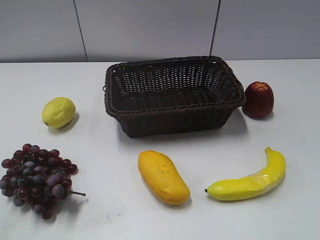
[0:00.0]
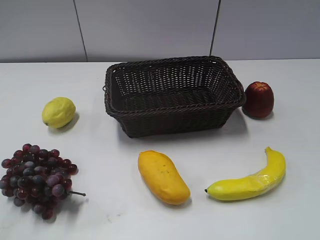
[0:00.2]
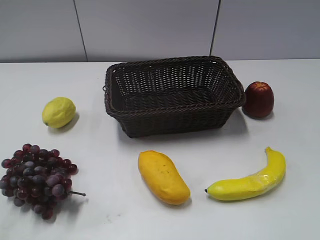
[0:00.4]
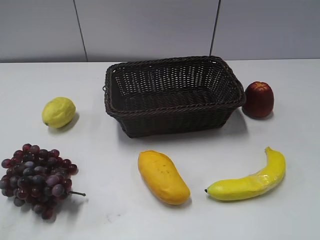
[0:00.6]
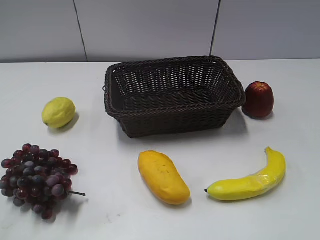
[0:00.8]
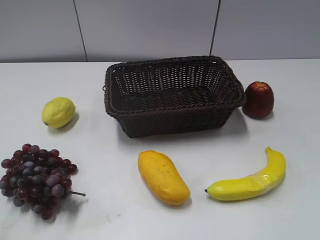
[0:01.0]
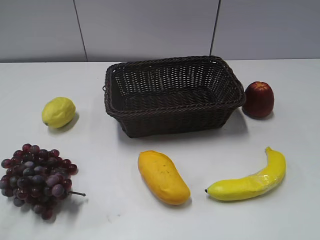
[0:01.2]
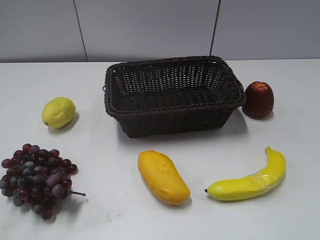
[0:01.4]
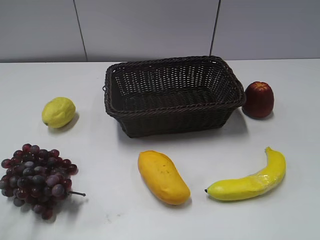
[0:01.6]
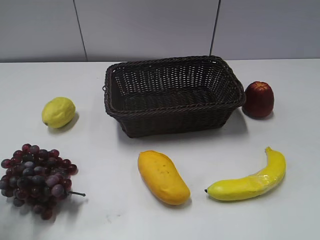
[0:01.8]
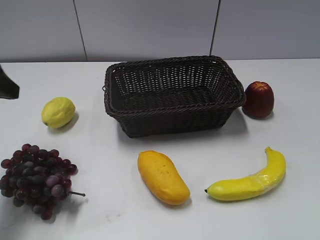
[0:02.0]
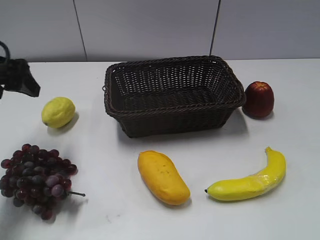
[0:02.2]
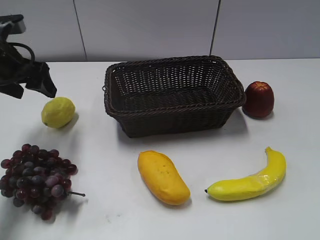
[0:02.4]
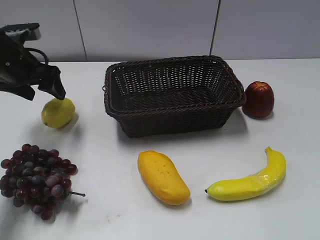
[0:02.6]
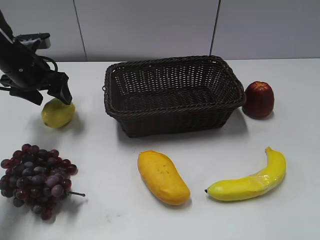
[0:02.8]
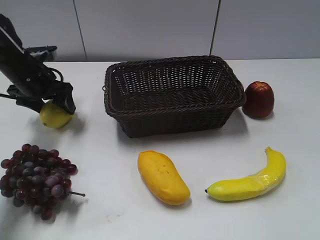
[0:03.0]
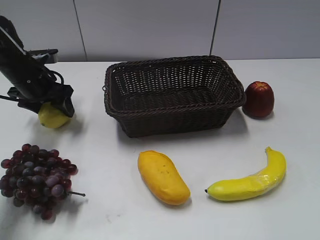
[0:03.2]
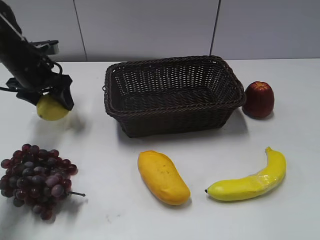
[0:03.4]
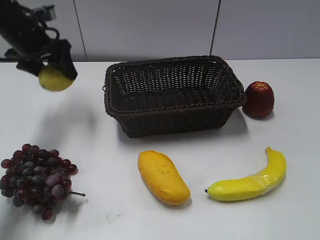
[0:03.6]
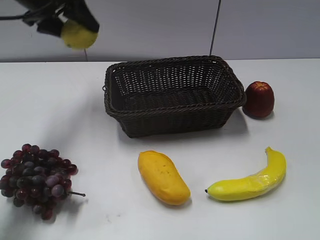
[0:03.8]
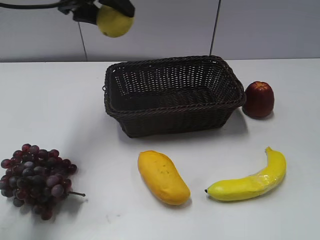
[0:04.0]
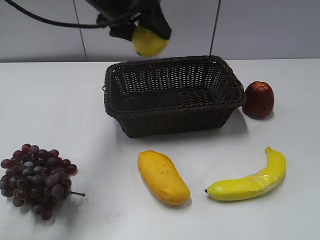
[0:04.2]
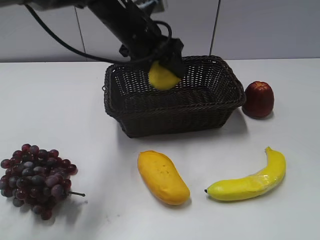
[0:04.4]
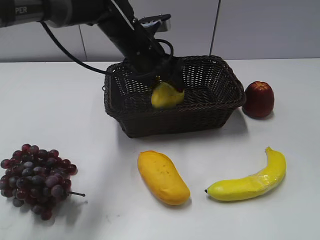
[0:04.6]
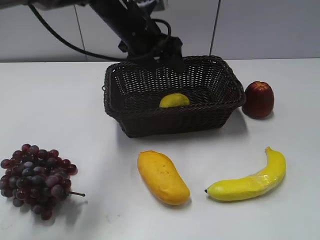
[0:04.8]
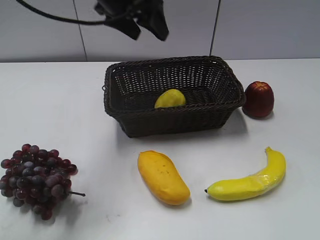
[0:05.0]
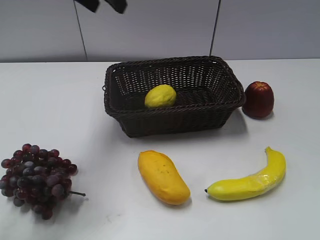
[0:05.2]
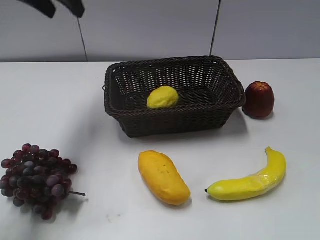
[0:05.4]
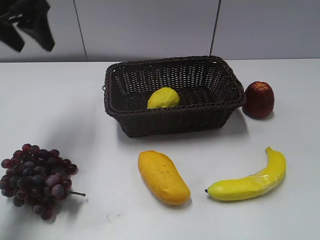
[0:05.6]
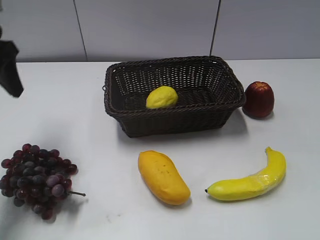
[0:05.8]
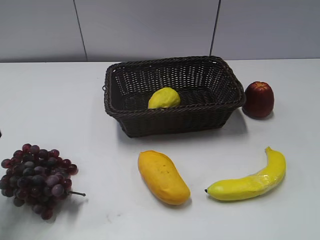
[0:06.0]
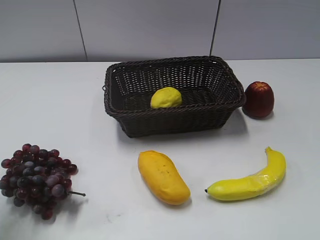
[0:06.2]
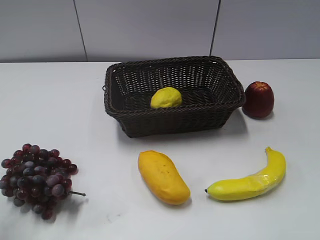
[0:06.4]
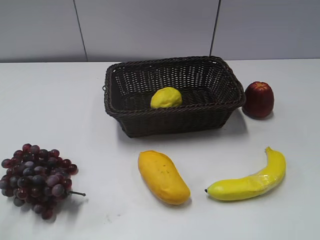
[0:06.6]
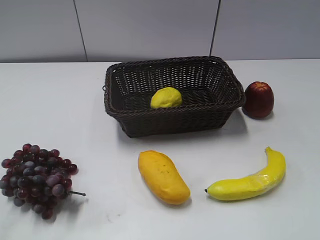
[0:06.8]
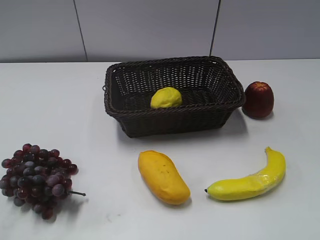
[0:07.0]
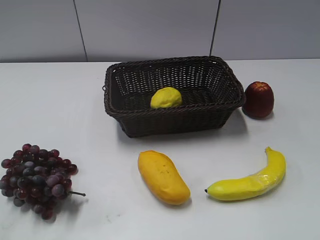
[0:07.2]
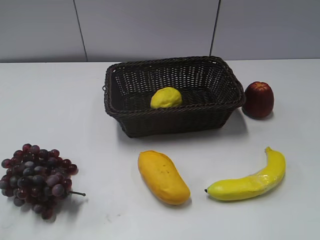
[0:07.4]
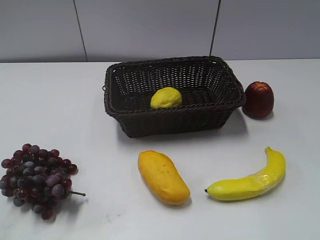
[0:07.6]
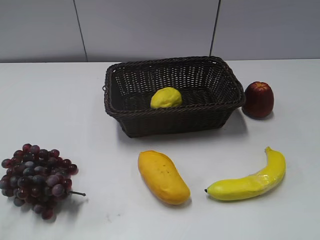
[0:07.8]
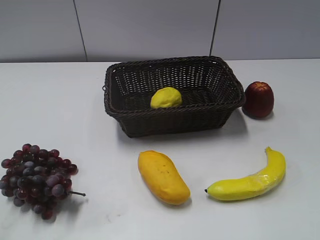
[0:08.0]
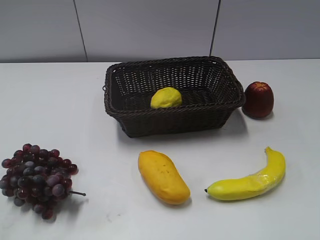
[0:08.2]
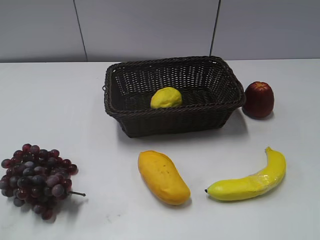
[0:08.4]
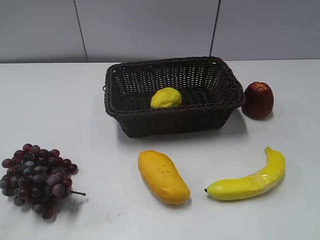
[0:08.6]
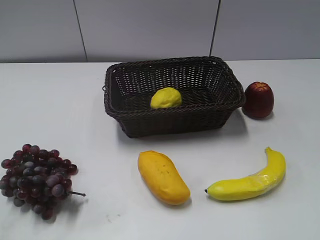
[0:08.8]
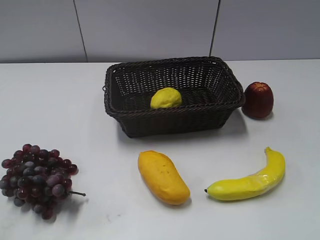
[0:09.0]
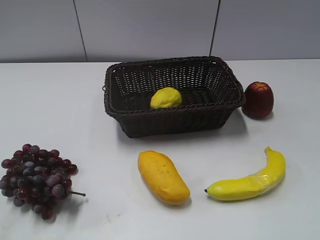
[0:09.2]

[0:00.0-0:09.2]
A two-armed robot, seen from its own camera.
Step, 0:02.0 to 0:03.2: Grasp the lemon with left gripper.
Step, 0:03.4 to 0:04.6: Place the lemon in the basket with left gripper.
0:01.6 to 0:03.0: The left gripper heads forward and downward, covering roughly 35 cm.
0:03.0 to 0:04.6: The left gripper shifts about 20 cm to the right, and closes, then reopens.
0:04.6 to 0:06.2: The left gripper shifts roughly 35 cm to the left and backward, and closes its fingers.
0:06.2 to 0:07.6: The left gripper goes roughly 15 cm backward.

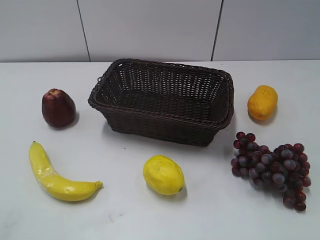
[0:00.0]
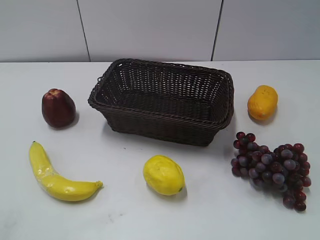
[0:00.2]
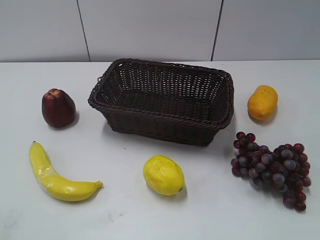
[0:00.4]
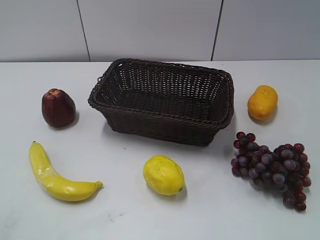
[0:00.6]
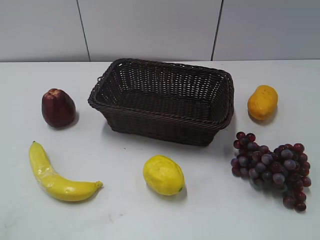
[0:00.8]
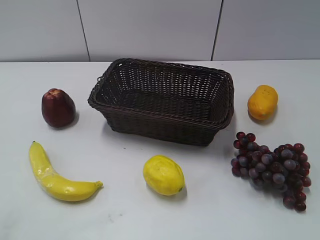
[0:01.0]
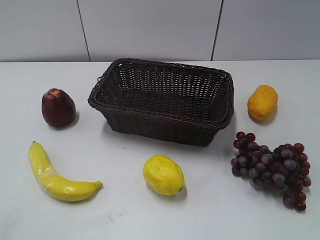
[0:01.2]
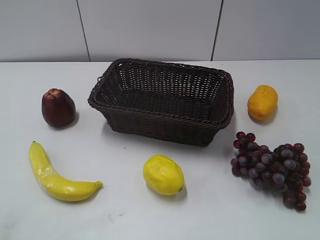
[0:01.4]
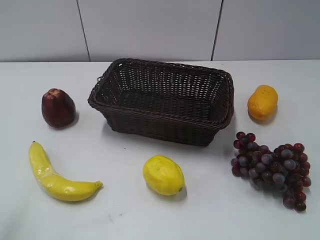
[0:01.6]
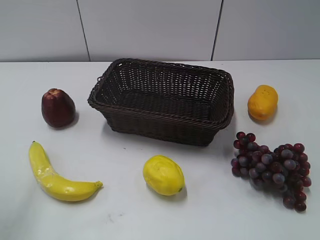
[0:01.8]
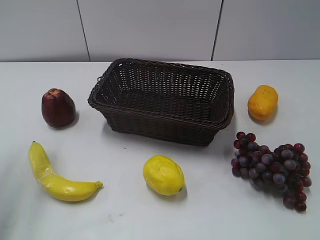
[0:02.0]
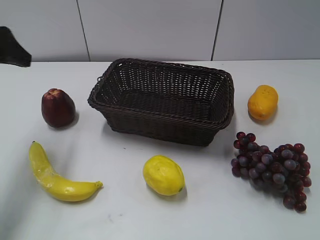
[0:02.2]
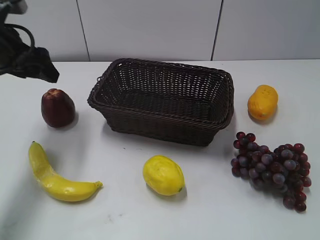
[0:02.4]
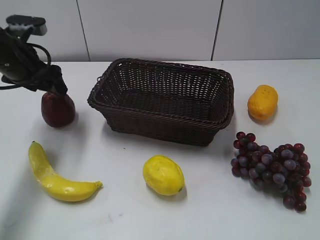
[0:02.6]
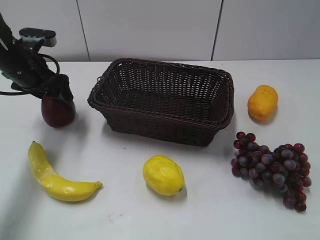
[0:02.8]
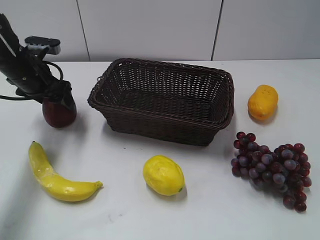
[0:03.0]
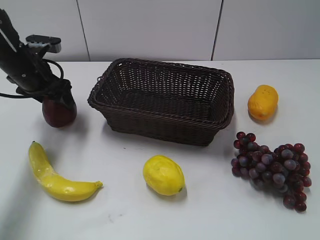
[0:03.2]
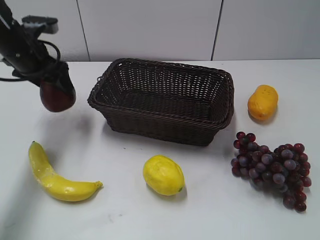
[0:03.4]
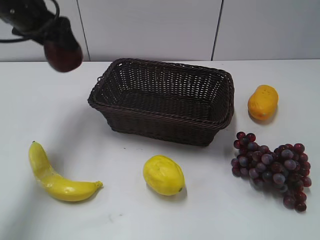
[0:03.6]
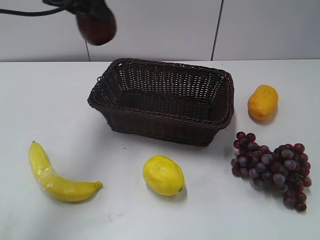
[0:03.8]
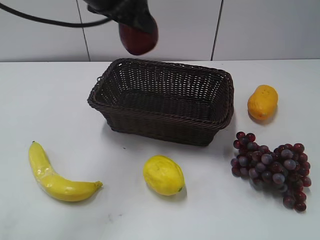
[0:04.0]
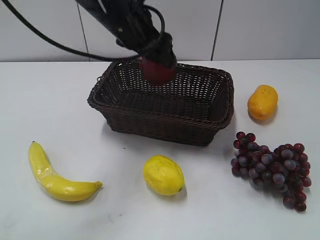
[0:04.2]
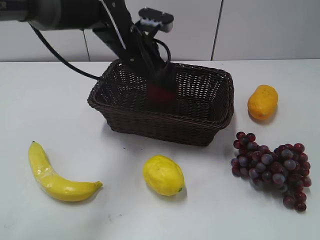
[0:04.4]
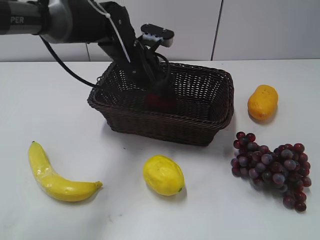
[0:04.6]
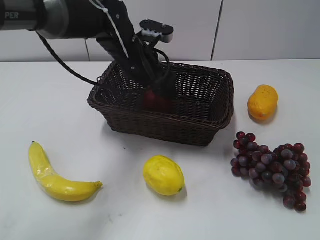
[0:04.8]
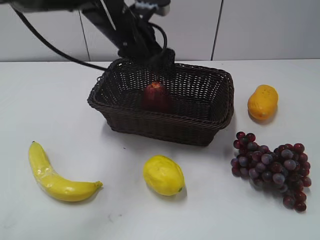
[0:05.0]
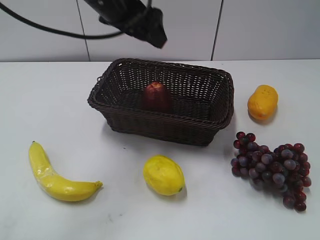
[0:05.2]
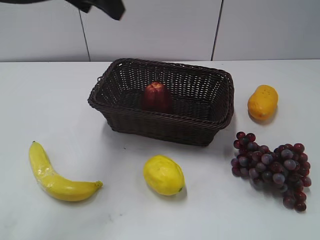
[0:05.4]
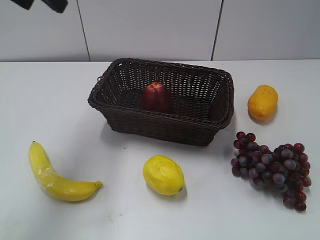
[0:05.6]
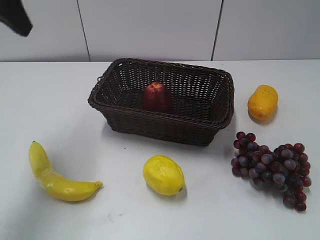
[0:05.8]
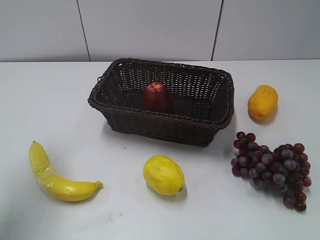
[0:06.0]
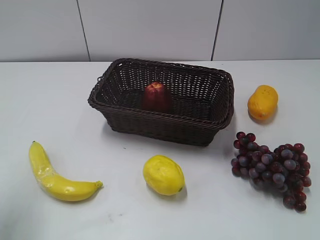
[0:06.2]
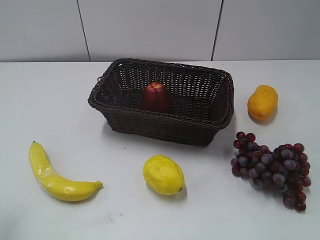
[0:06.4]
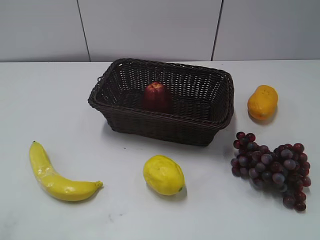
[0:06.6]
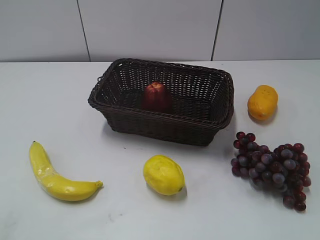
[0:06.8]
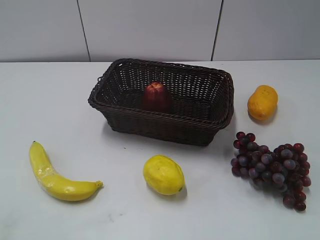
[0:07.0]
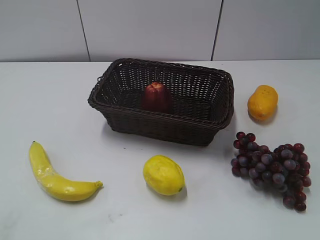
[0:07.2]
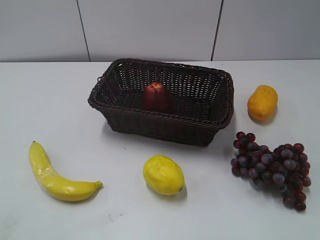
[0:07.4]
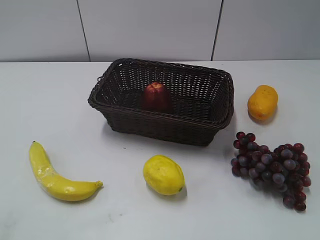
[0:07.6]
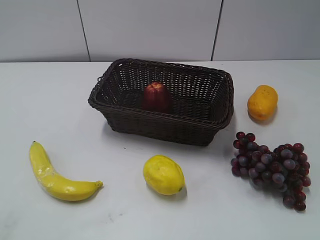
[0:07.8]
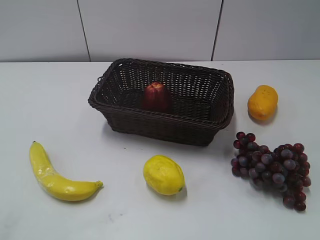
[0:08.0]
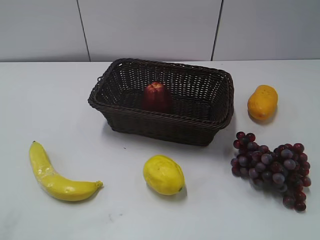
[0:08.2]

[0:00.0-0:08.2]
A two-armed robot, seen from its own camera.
Step, 0:02.2 to 0:02.8: Grasp the apple with left gripper.
Step, 0:03.2 to 0:04.6: Place the apple in the basket with left gripper.
0:01.6 to 0:03.2: The left gripper goes some 30 cm forward and downward.
0:03.2 to 0:05.0: The left gripper shifts some 20 cm to the right and upward, and opens.
0:05.0 to 0:06.6: The left gripper is displaced backward and to the left by roughly 40 cm, and closes its fingers.

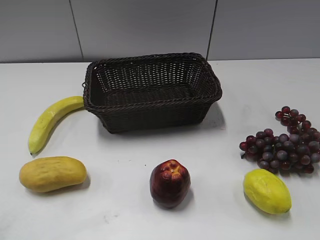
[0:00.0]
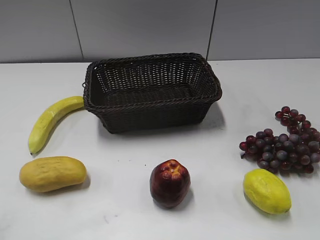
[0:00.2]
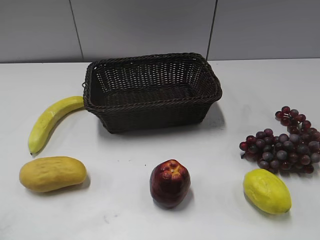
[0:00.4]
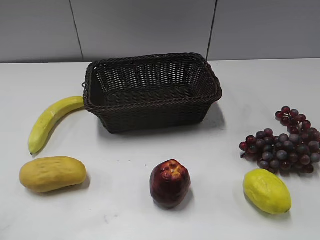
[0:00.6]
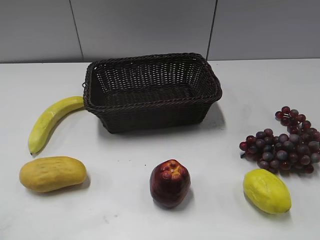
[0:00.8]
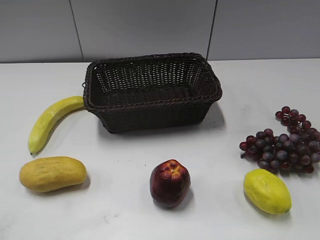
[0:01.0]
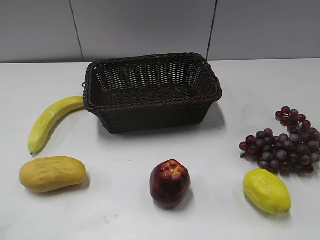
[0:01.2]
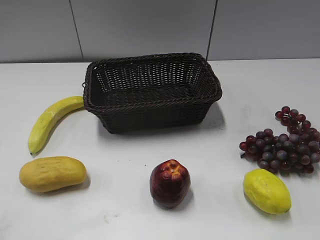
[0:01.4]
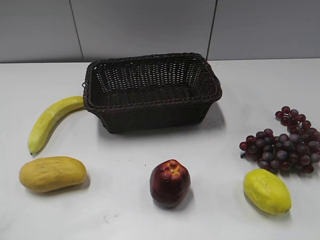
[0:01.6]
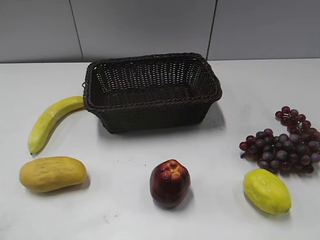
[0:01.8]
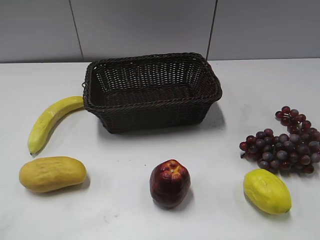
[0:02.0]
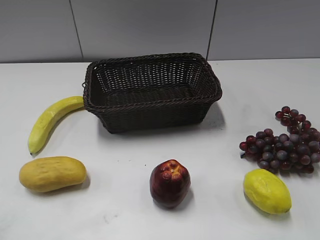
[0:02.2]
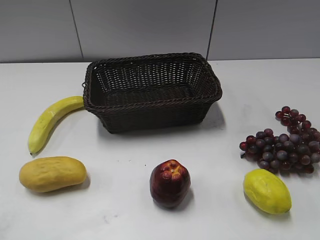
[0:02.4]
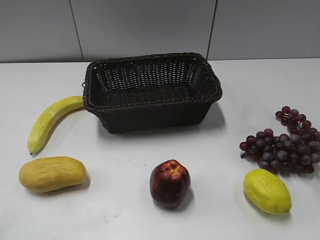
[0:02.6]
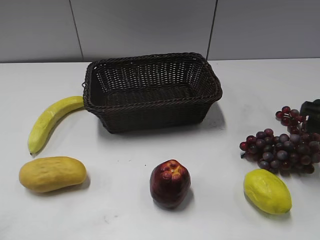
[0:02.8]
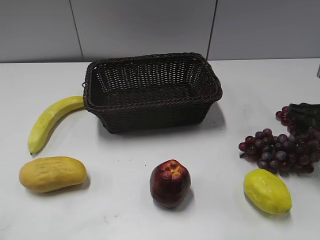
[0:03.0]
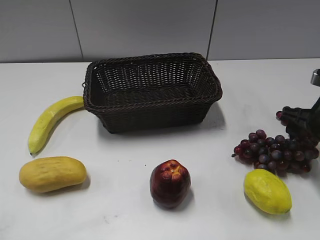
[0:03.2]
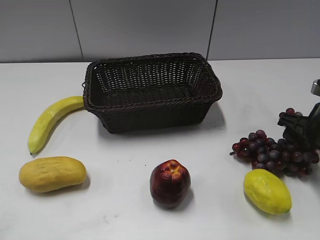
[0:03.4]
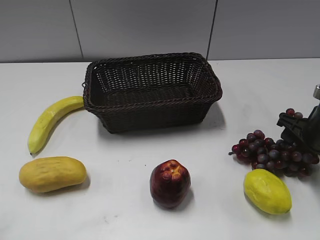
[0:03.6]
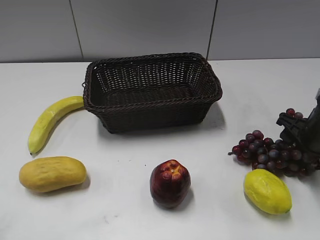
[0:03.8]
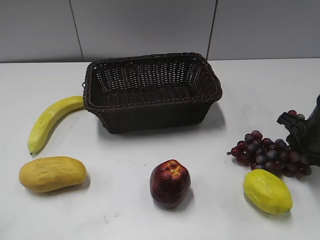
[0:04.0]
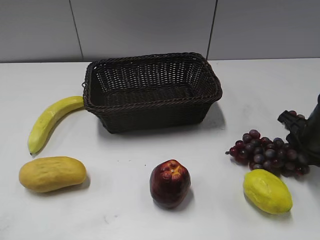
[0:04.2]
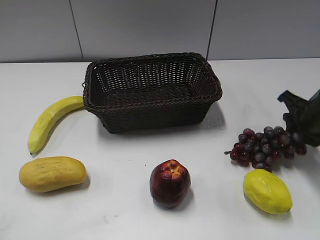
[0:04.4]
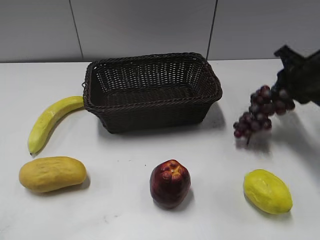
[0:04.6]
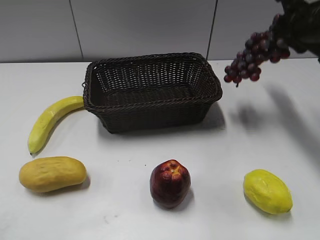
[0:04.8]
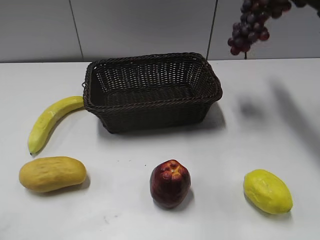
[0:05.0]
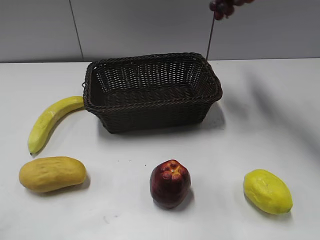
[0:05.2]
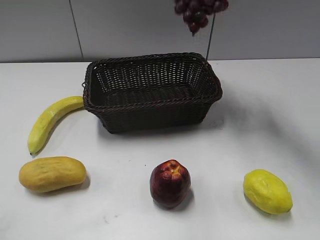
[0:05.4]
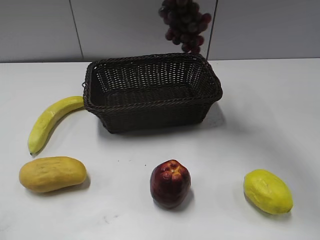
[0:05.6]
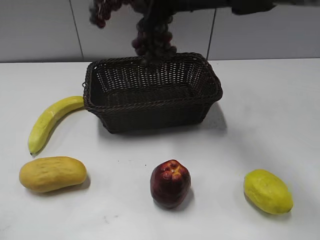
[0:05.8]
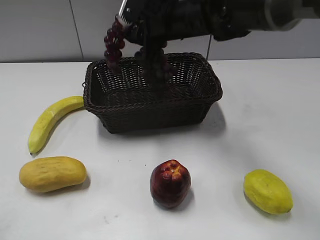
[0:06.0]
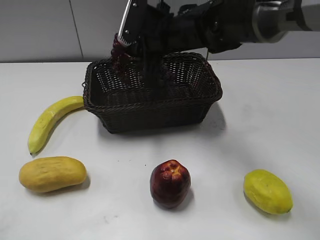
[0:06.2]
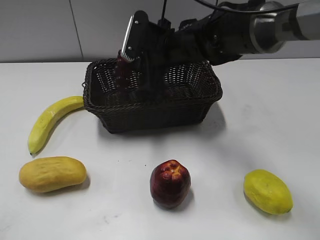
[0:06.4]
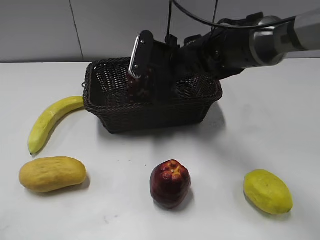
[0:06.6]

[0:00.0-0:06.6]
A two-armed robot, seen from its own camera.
Step, 0:02.8 to 0:04.0: Grasp the grape with right gripper.
0:01.6 to 0:03.2: The right gripper moves forward and downward, approximately 30 cm.
0:03.2 to 0:05.0: The right gripper is displaced upward and forward by approximately 20 cm, and closes.
0:05.0 to 0:06.6: The right gripper goes some 25 cm downward and to the left, and opens.
